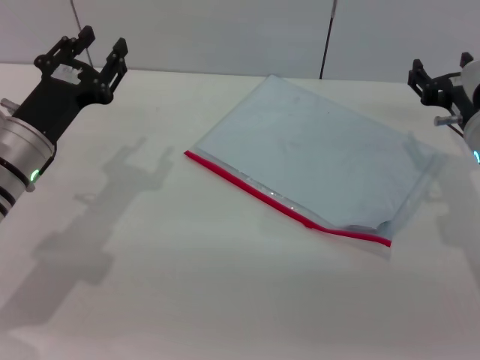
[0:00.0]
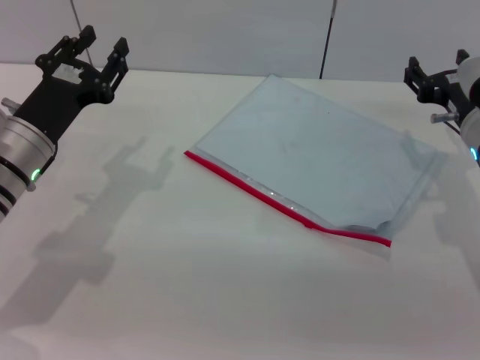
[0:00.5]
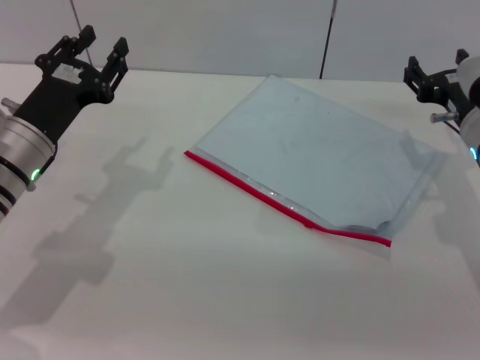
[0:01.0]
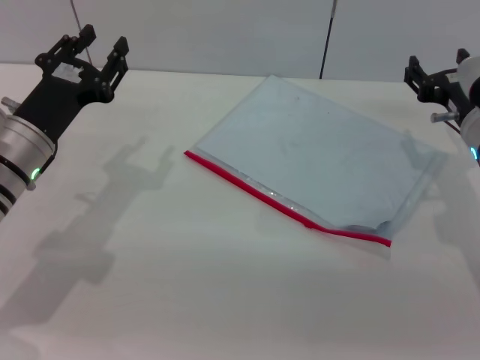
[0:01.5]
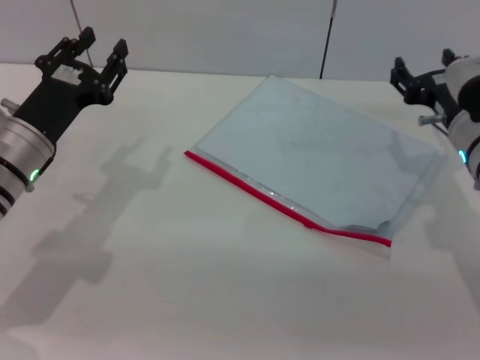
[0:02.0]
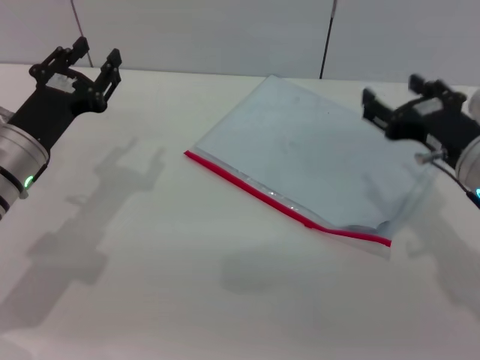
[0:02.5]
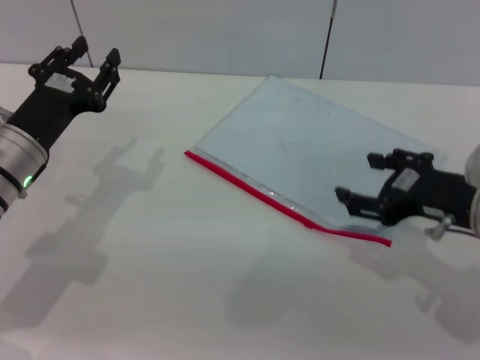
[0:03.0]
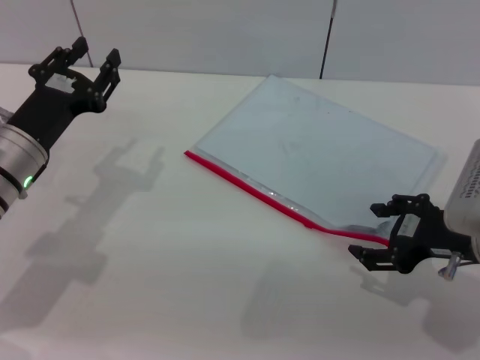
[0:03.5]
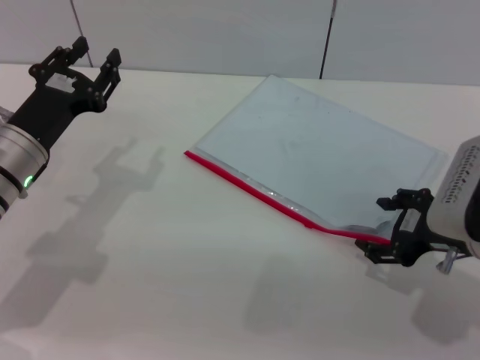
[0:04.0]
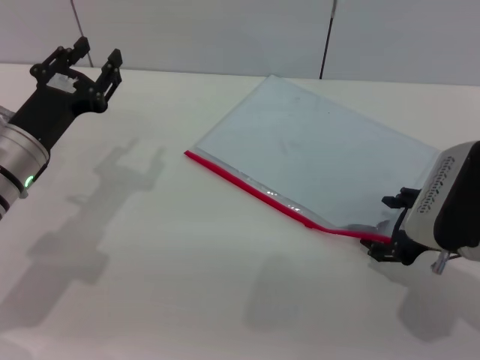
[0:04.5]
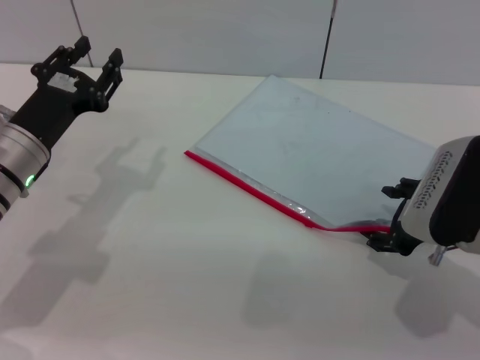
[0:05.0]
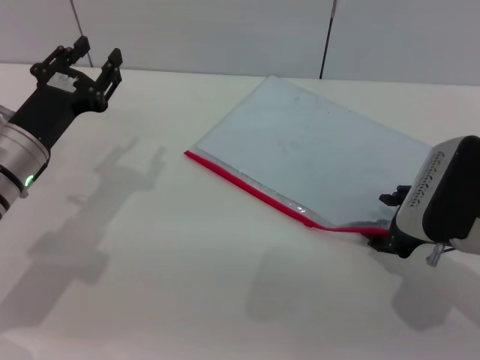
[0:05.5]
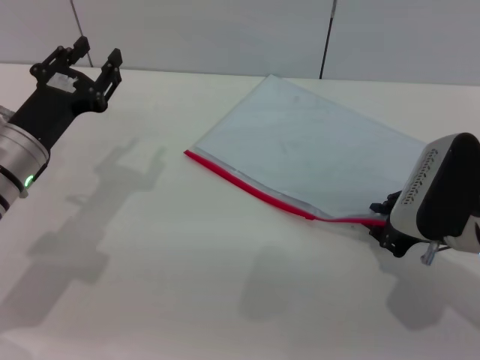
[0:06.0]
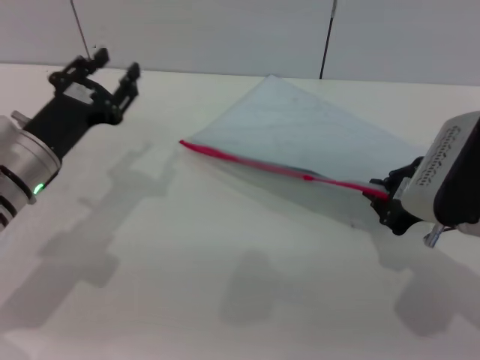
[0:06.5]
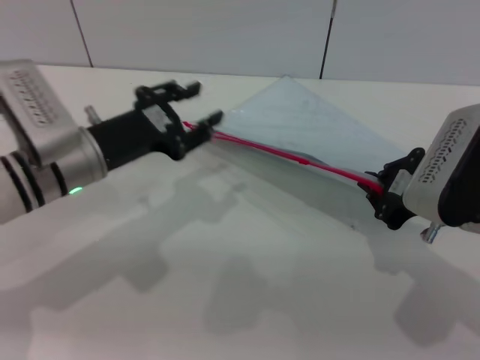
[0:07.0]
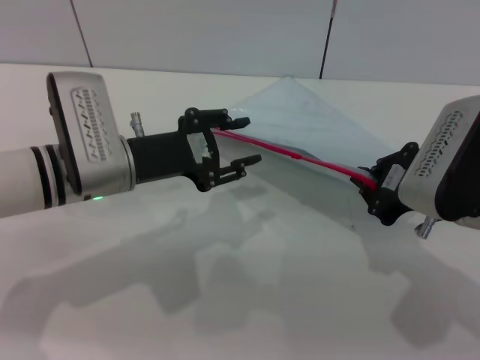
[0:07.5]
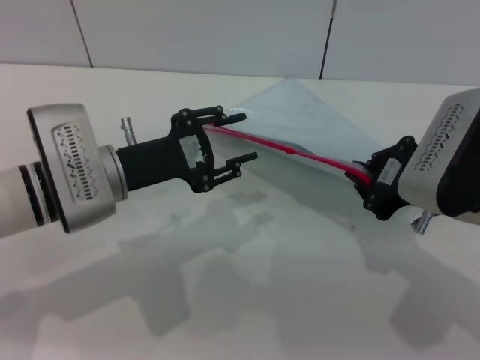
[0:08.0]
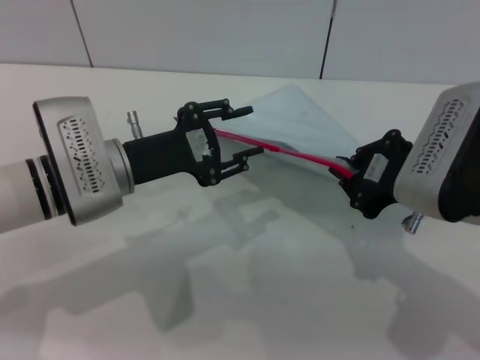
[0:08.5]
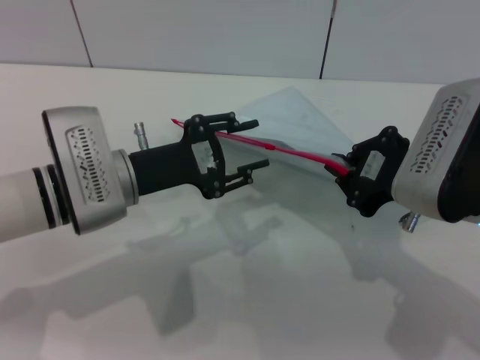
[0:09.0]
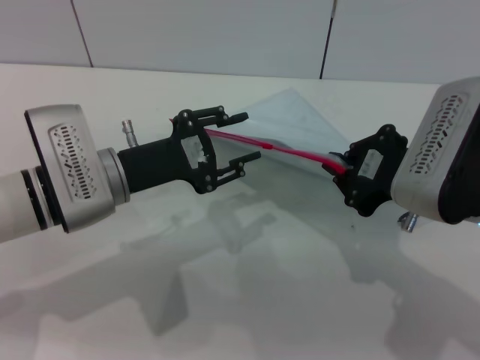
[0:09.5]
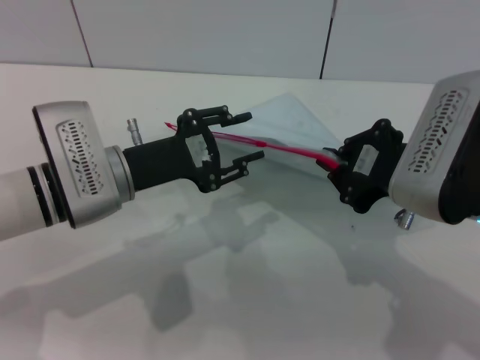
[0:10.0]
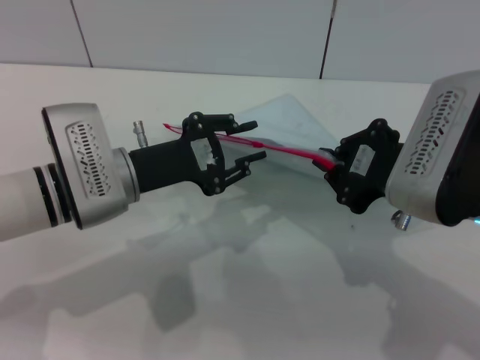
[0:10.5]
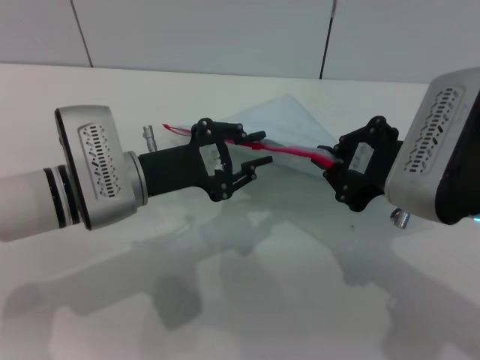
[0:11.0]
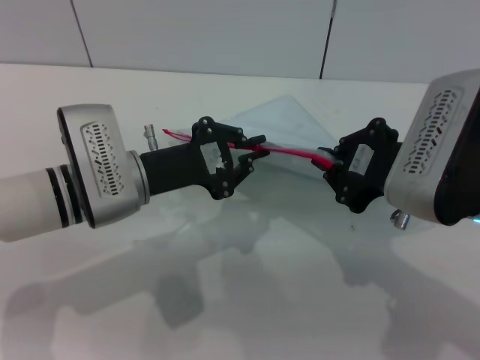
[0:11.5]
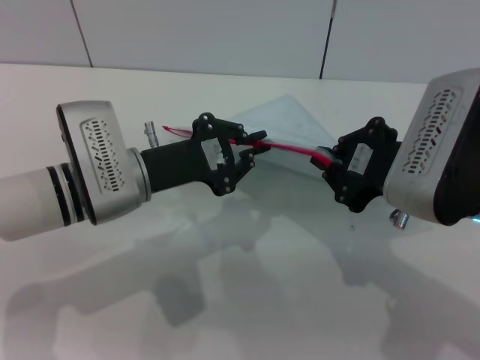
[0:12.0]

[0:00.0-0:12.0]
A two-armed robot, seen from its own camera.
Step, 0:00.0 to 0:07.0: Pick up the transparent plastic bag with the right gripper.
0:00.0 to 0:02.0: The grippers stay close to where they were, moving slightly.
0:02.0 to 0:04.0: The right gripper is displaced backward by roughly 5 cm.
0:04.0 to 0:06.0: The right gripper closes.
0:06.0 to 0:08.0: The left gripper shifts approximately 5 cm to the right; the right gripper shifts some 5 cm upward, and closes up.
0:08.0 to 0:10.0: The grippers make only small movements.
0:10.0 to 0:12.0: The left gripper closes.

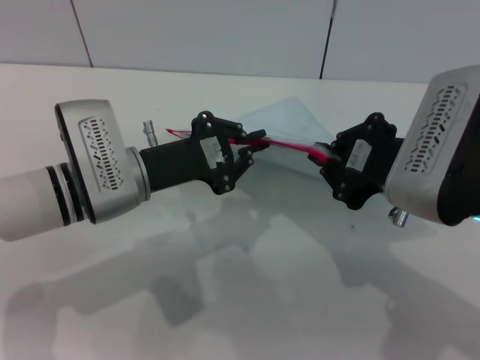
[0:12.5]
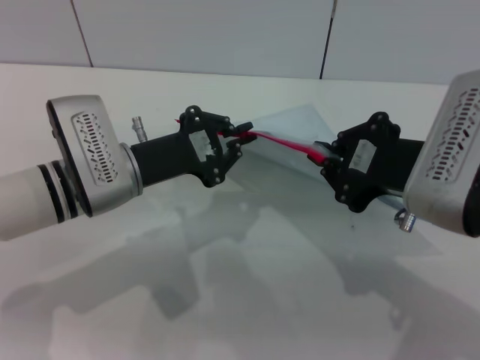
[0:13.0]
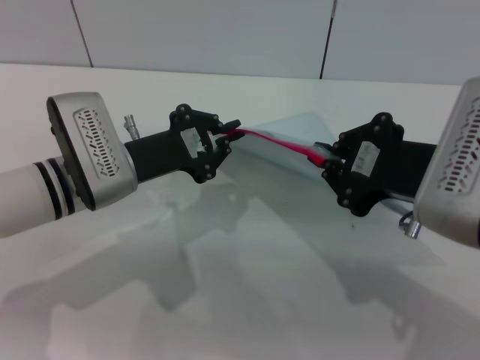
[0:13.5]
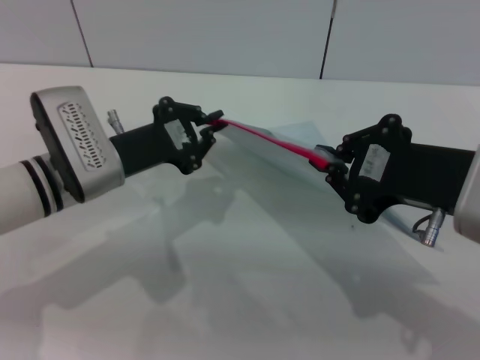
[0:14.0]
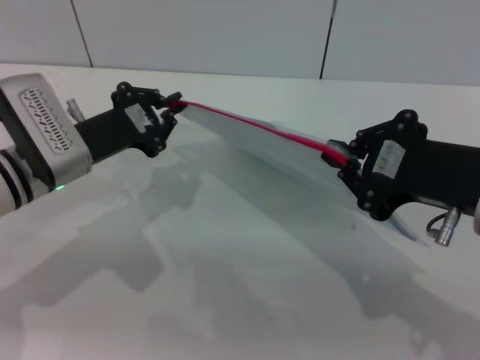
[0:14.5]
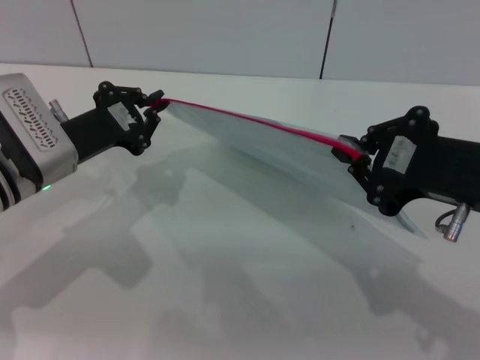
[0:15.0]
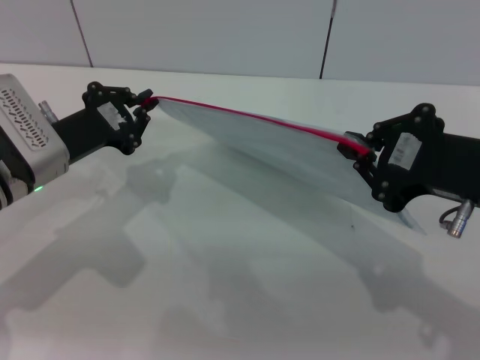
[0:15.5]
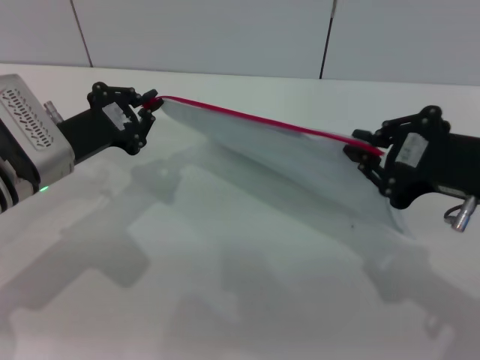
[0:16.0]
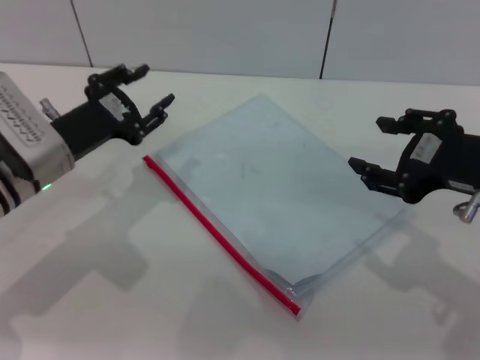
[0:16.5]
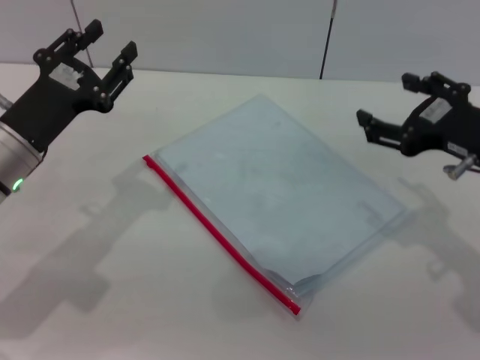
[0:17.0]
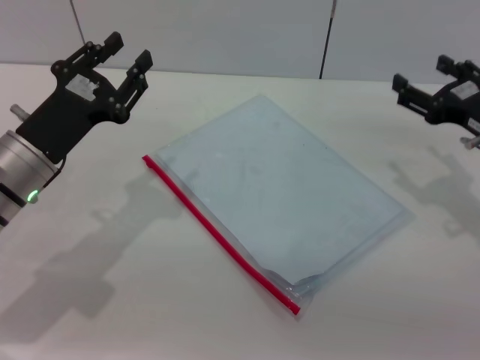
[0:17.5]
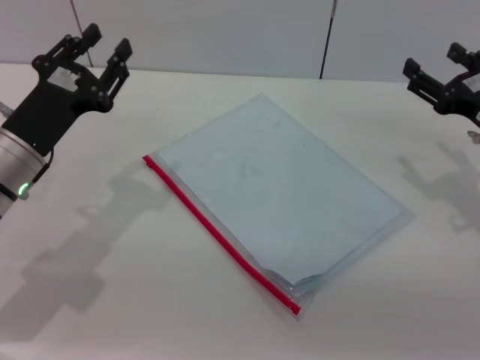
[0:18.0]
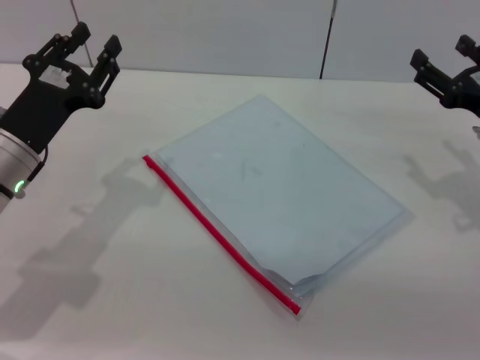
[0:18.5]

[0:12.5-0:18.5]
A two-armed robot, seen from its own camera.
Step, 0:12.5 to 0:16.0: Pulling up the zipper on the transparent plastic bag with the left gripper to close it.
0:12.5 to 0:14.5: The left gripper moves to the left, roughly 5 cm.
0:14.5 to 0:16.5: The left gripper opens. The right gripper opens up.
0:16.5 to 0:18.5: The right gripper is displaced downward, forward and to the right by roughly 15 cm, and opens. Meanwhile the left gripper opens its fingers.

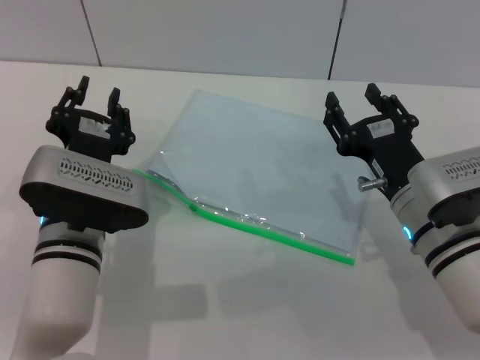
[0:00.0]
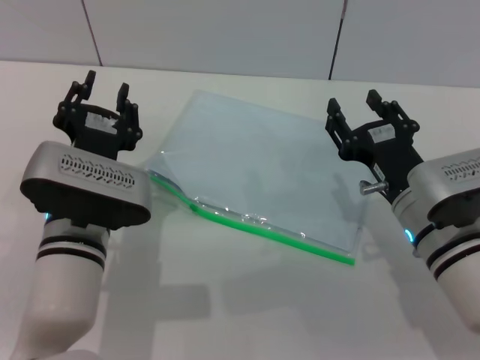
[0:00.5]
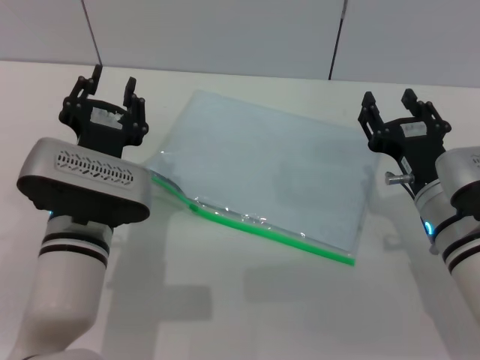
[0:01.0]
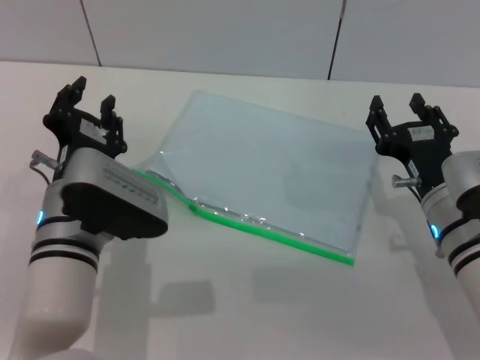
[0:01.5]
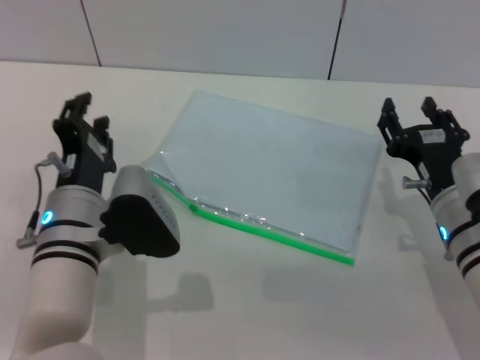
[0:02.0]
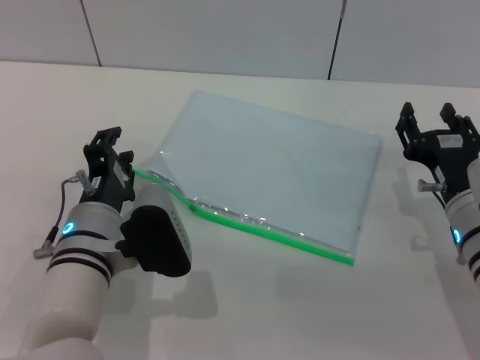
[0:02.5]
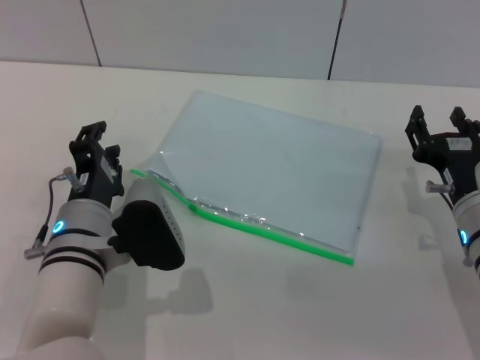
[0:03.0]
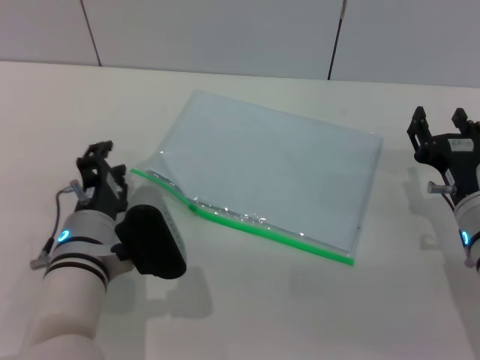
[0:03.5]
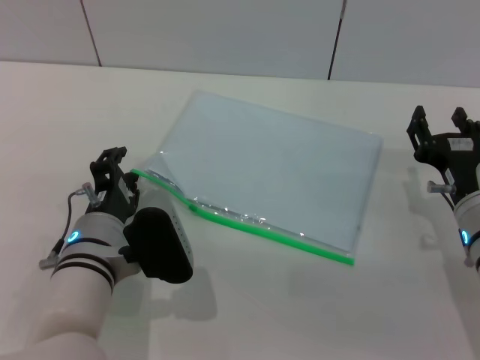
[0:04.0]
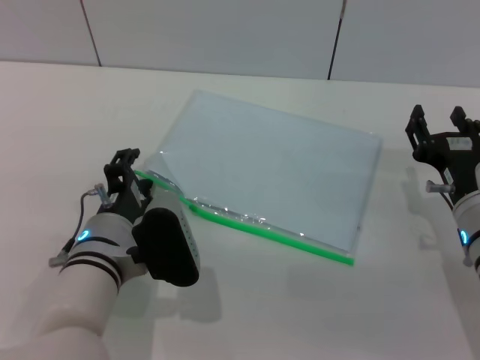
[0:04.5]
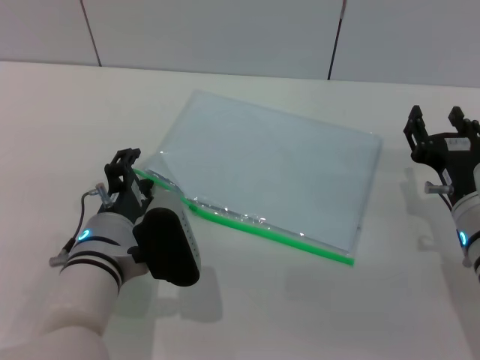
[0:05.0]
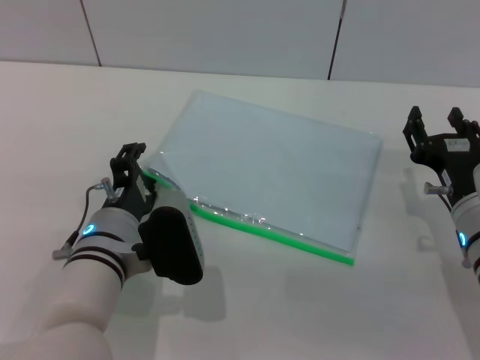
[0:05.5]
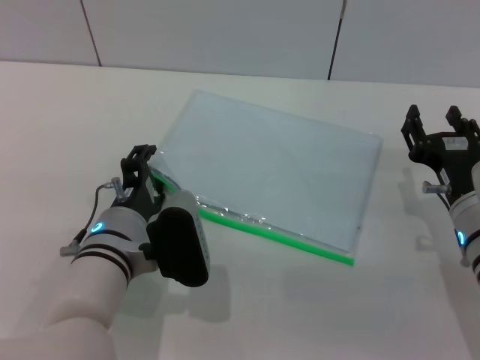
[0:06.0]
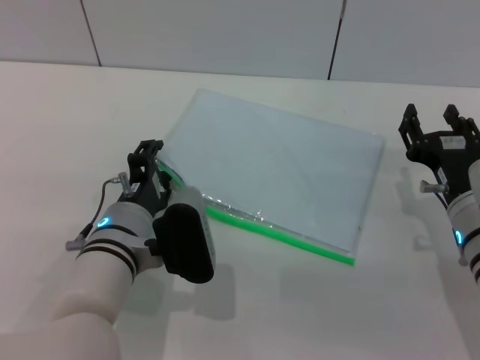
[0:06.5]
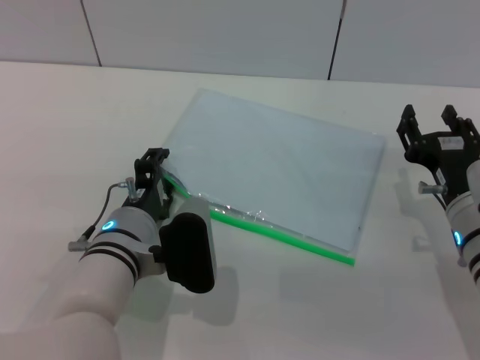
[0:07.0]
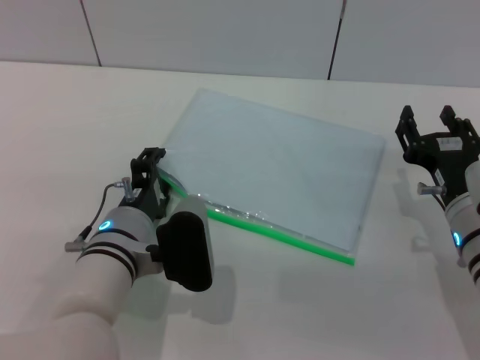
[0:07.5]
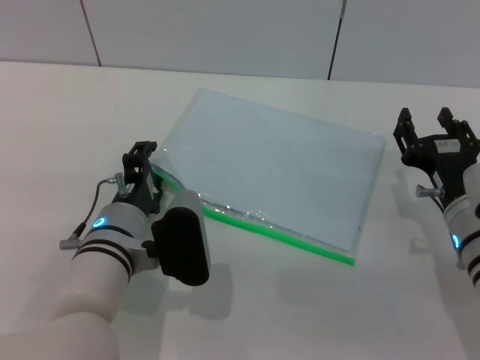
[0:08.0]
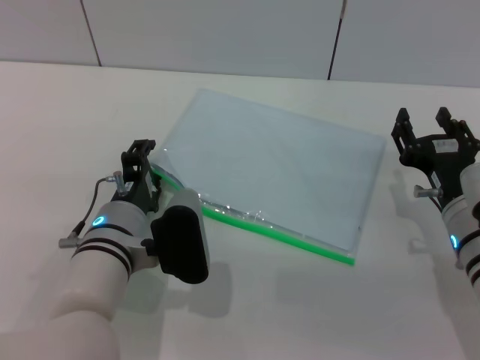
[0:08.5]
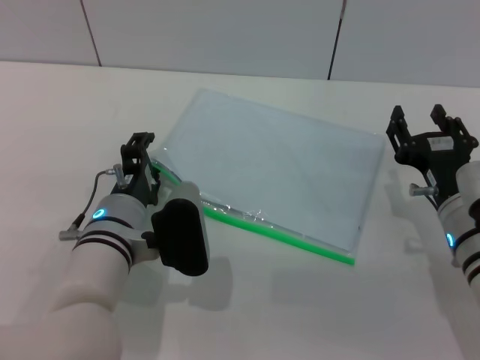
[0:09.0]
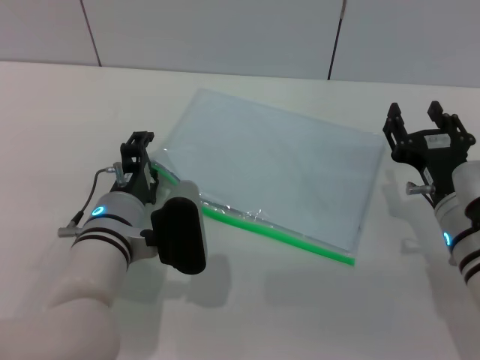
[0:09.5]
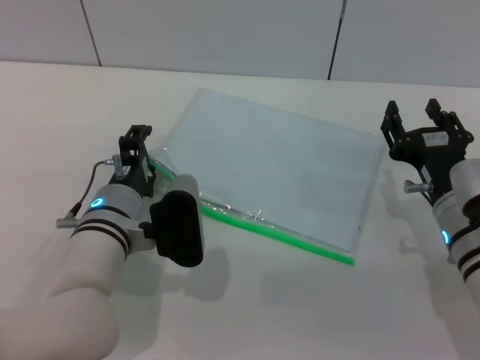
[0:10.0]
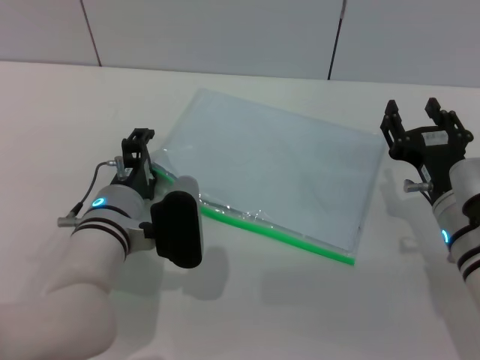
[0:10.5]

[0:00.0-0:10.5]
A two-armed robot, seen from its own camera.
0:02.0 to 0:04.0: The grippers stay close to where they were, moving slightly.
0:04.0 to 0:10.5: The grippers make only small movements.
